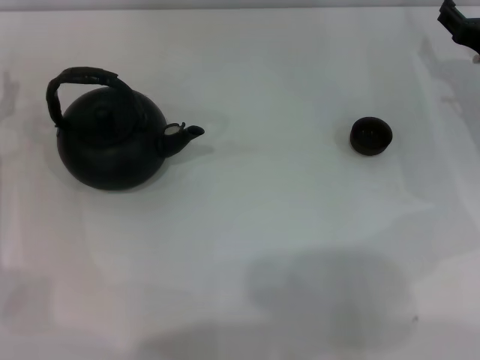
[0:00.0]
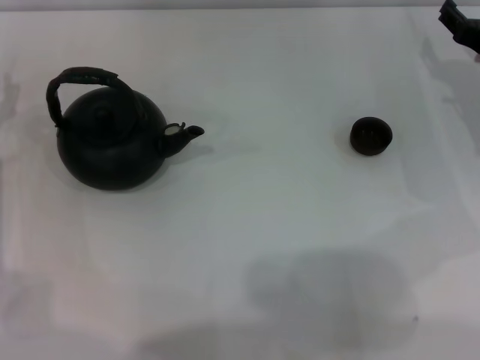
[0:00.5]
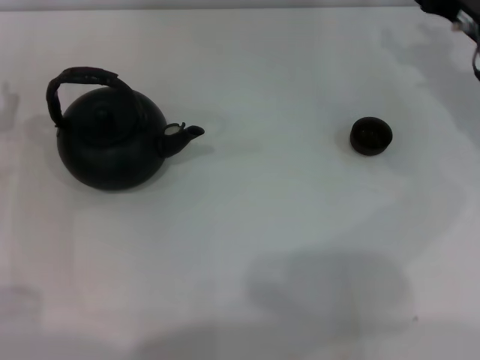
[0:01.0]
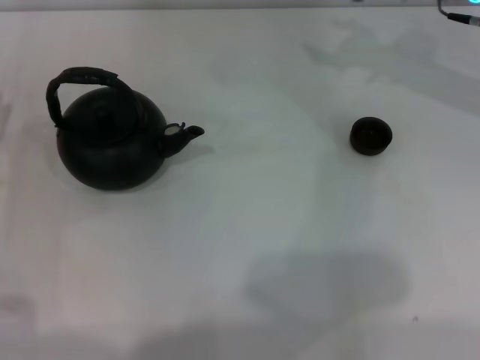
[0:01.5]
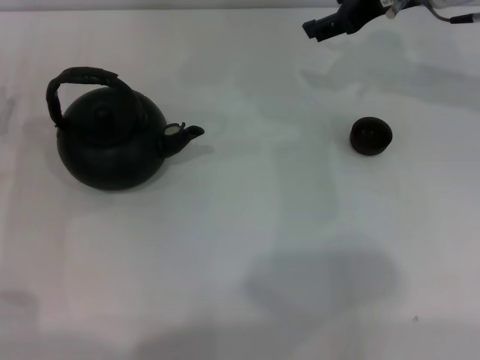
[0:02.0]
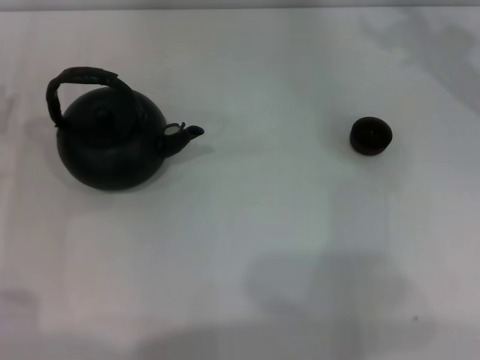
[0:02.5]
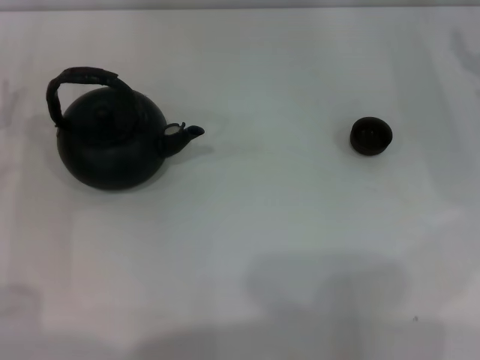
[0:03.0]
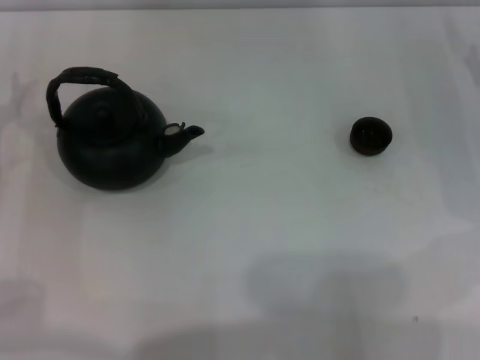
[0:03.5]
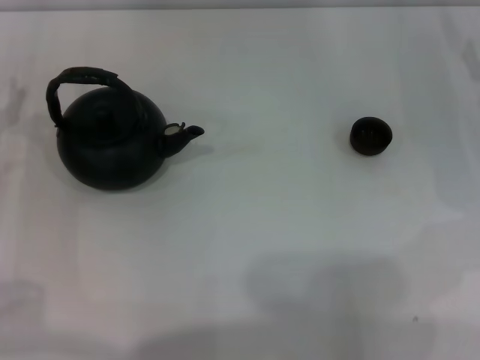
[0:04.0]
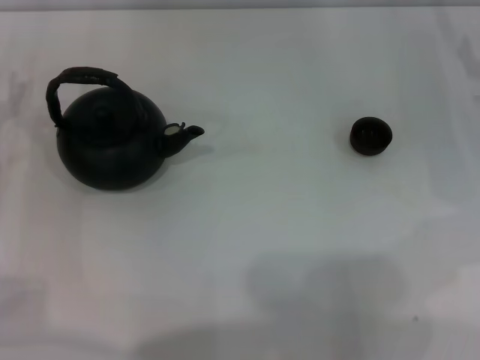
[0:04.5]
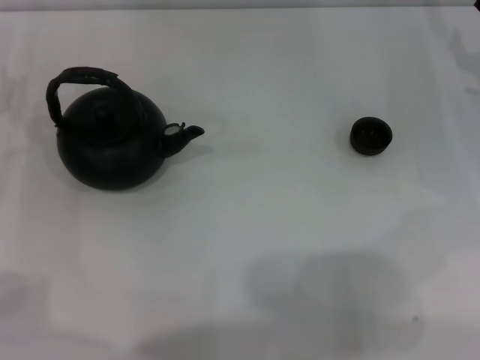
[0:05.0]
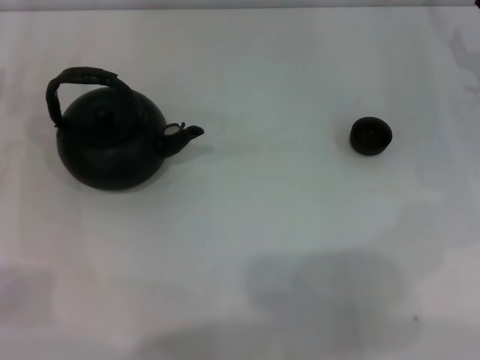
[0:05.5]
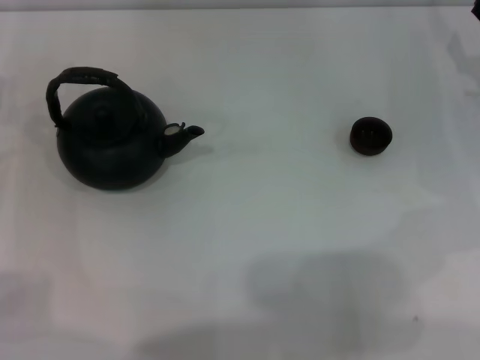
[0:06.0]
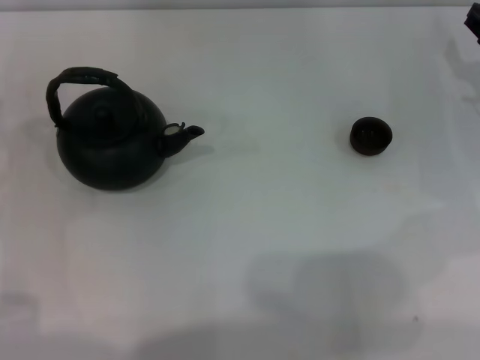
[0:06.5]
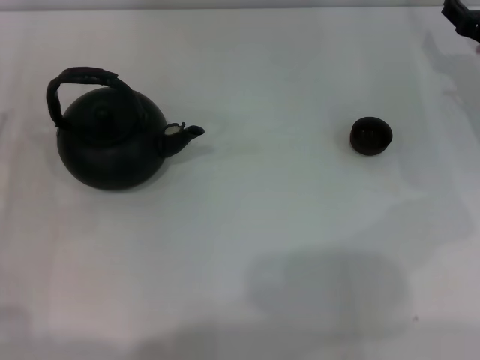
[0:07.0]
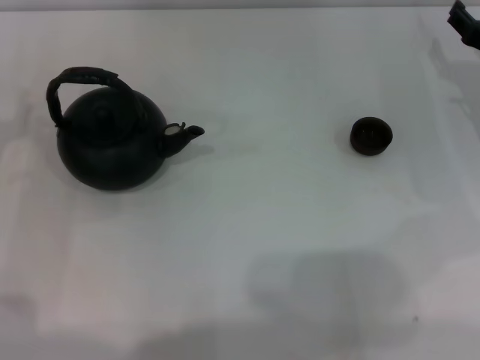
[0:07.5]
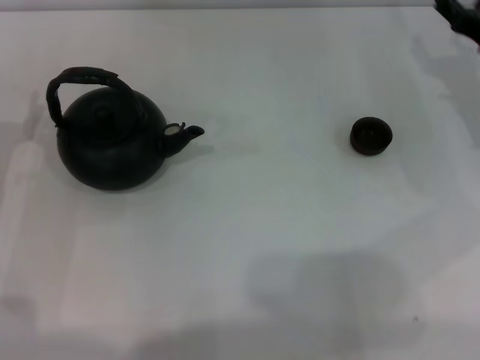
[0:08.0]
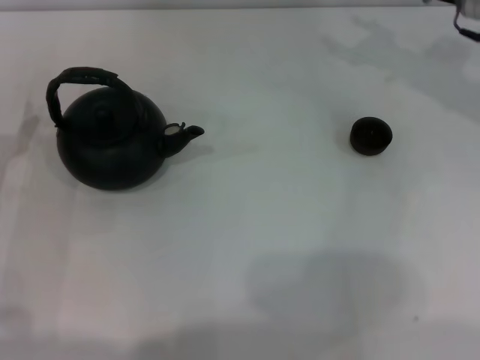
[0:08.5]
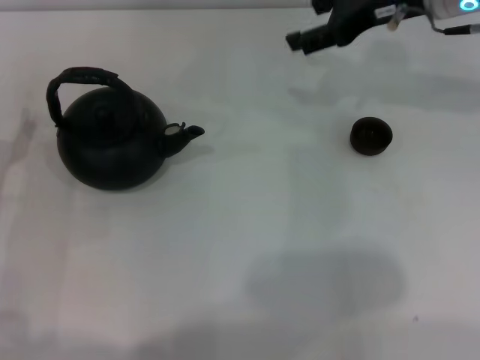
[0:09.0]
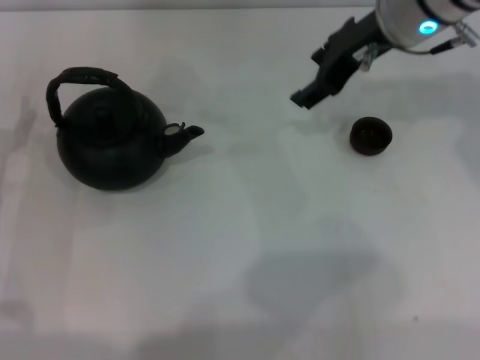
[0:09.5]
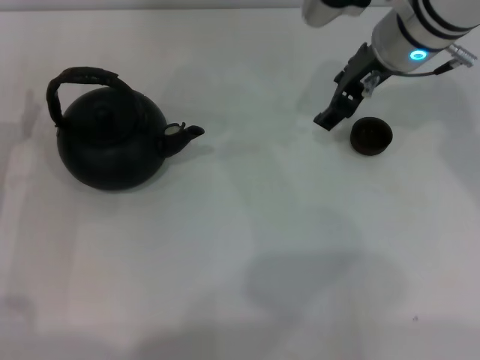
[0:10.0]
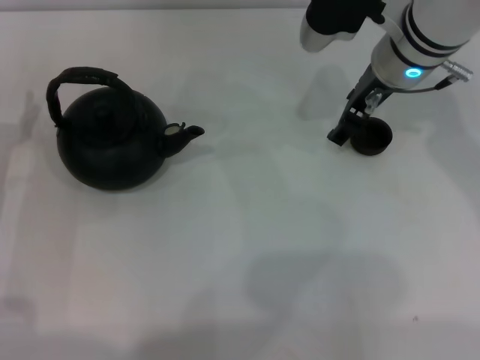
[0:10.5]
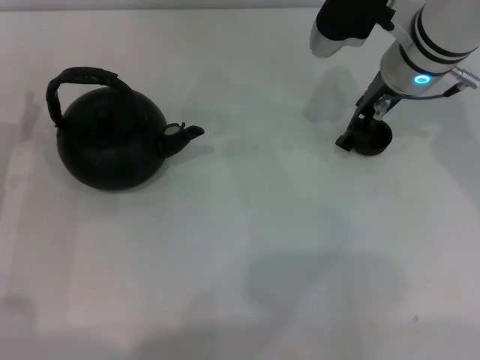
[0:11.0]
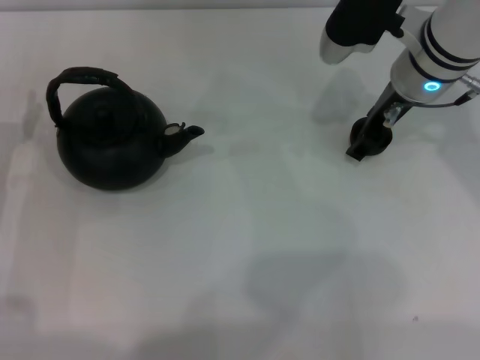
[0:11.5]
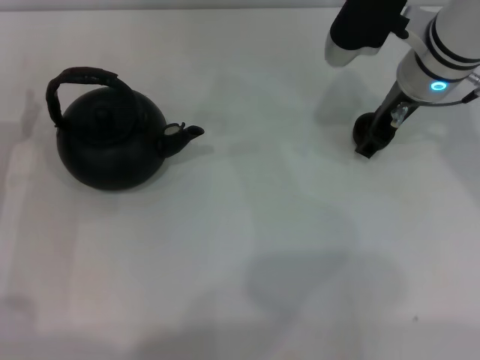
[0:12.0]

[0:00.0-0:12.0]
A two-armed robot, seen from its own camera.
Task of the whole recording: Grasp the handle of the teapot with one hand and pour tea into the teacup.
0:00.0 to 0:02.0: The right gripper goes some 20 cm upward, to the left and forward.
0:02.0 to 0:04.0: The right gripper goes roughly 20 cm to the right, downward and backward.
0:08.0 to 0:10.0: The right gripper goes approximately 20 cm to the left and upward.
0:10.0 to 0:12.0: The grippers move only a little.

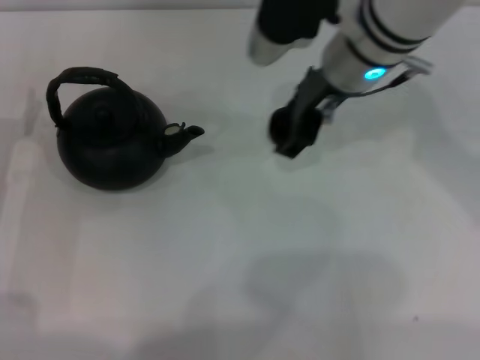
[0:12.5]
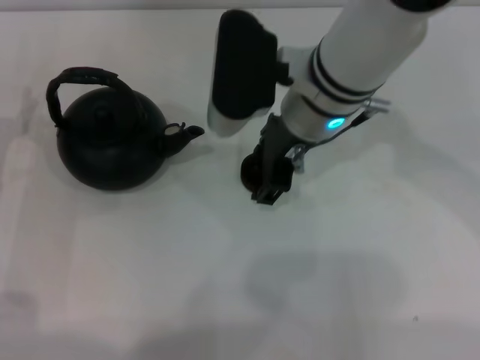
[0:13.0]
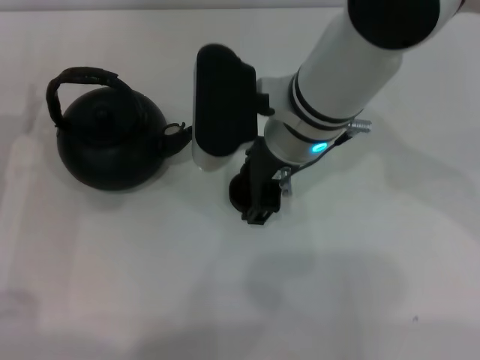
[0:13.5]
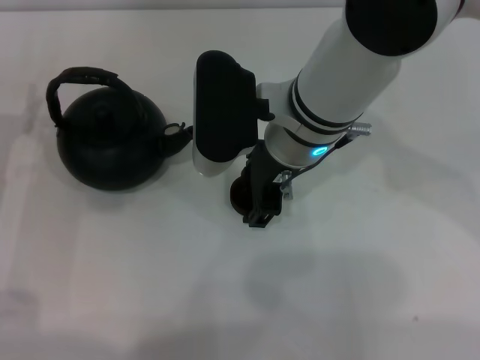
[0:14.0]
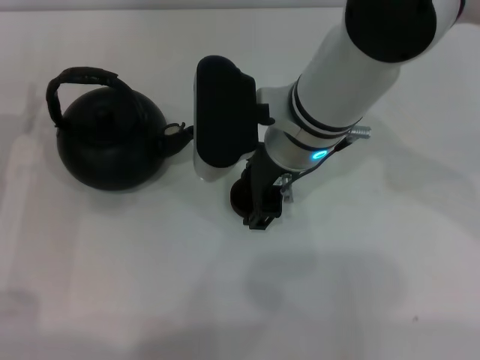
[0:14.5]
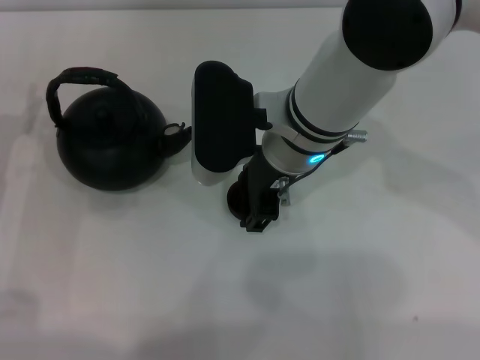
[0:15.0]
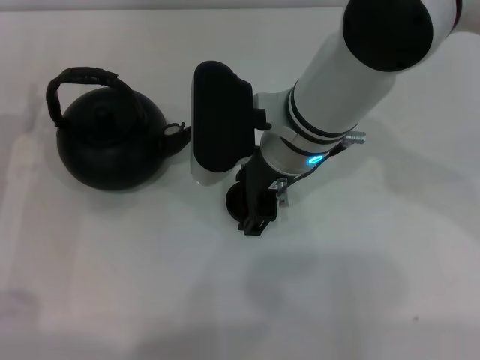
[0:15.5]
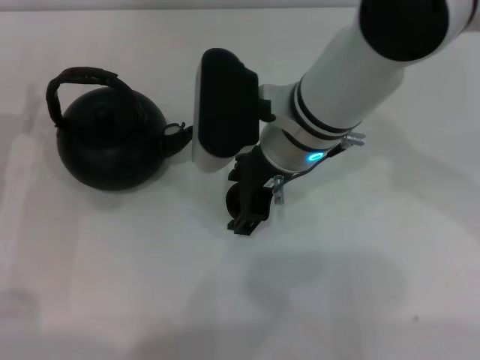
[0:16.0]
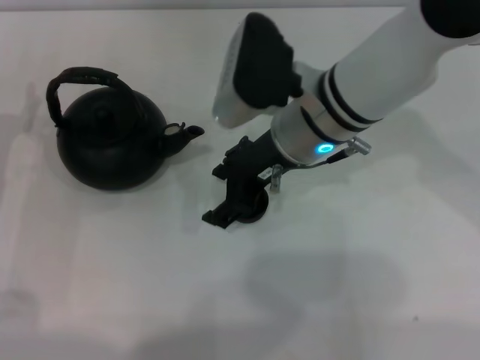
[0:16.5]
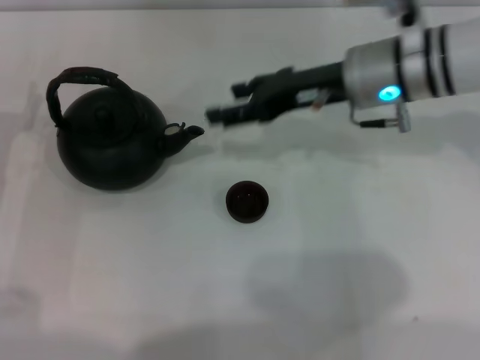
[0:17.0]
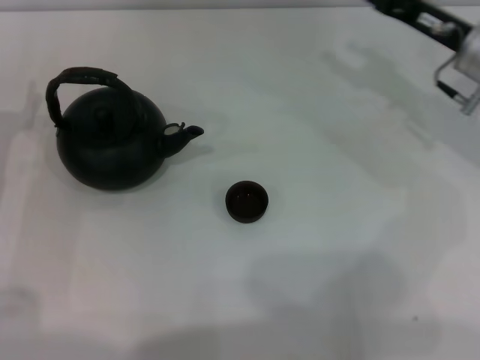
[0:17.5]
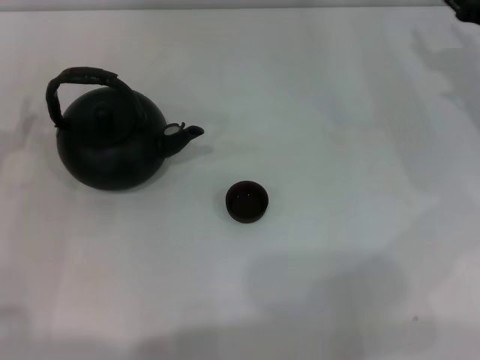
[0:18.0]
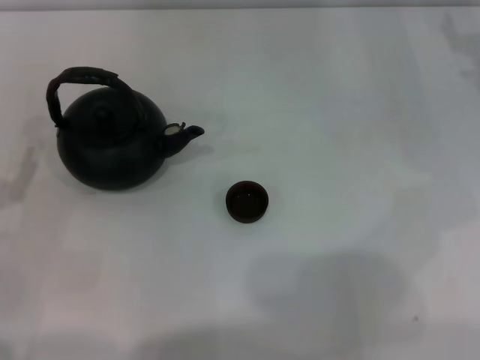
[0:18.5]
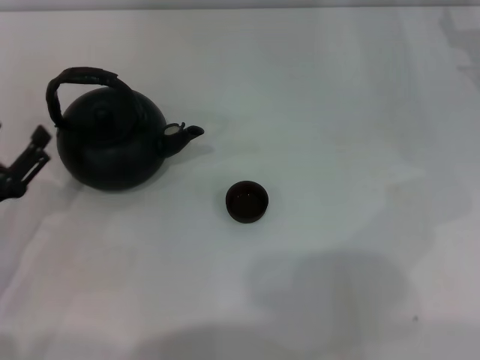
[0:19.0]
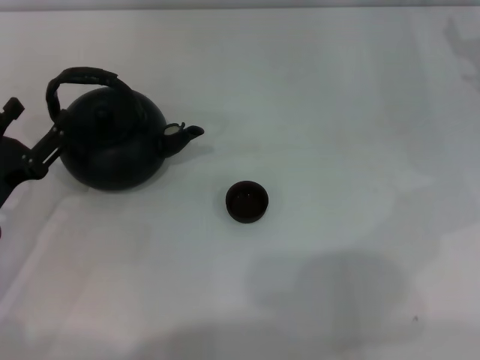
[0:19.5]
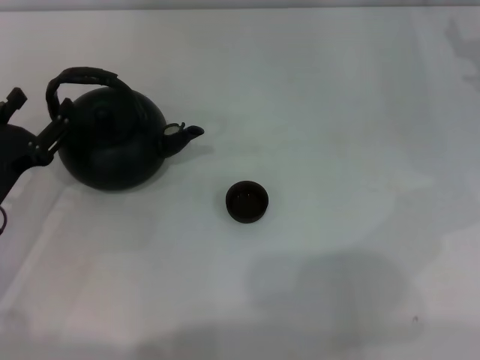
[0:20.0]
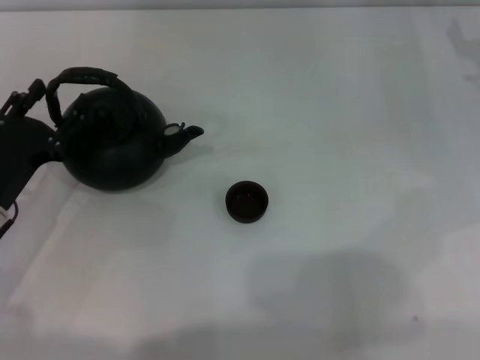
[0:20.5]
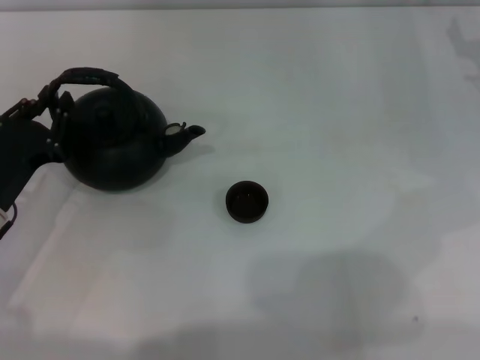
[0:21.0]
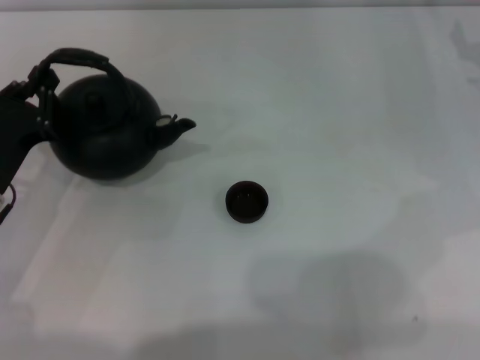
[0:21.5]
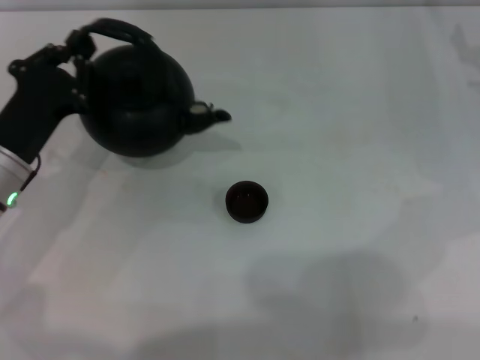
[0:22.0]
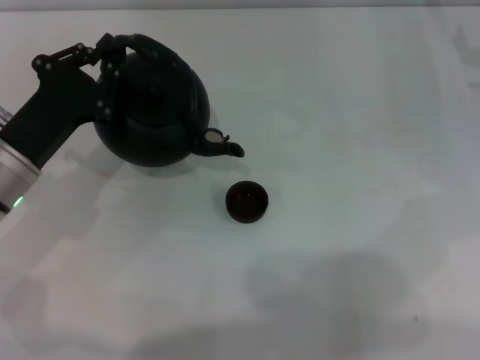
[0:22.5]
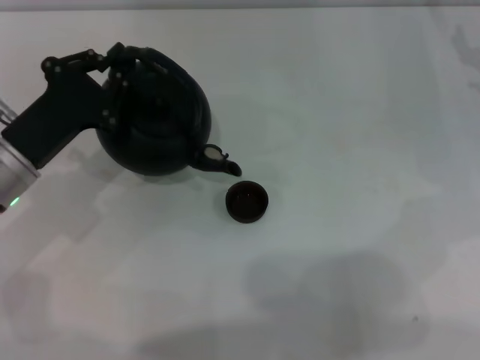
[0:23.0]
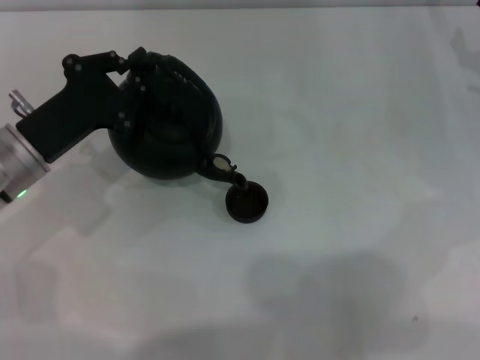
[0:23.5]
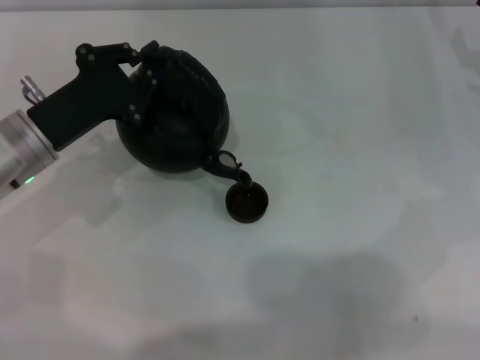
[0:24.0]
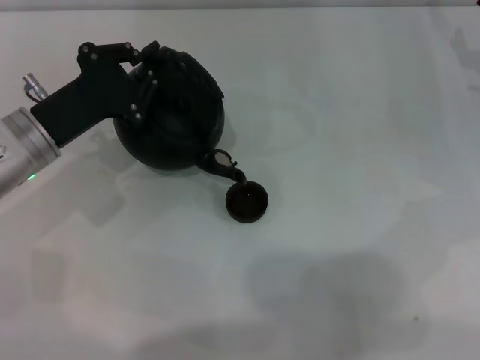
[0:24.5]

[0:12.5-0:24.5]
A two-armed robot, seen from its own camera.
Task of the whole recording: Grasp the handle of the teapot with one hand and pour tea into the teacup.
Step, 0:12.5 to 0:15.5: Place the teacup in the center of view with the right gripper.
Step, 0:16.0 to 0:22.0: Pick up the teapot with the left gripper.
0:12.5 to 0:14.5: The right gripper heads to the left and backward, covering roughly 5 cm.
0:16.5 to 0:18.5: The left gripper goes some 10 cm backward. Meanwhile the right gripper travels to the right by about 25 cm.
0:18.5 to 0:20.5: The left gripper moves to the right and forward, some 10 cm.
0:20.5 to 0:22.5: The left gripper shifts by roughly 5 cm, and closes.
0:22.5 to 0:24.5: The grippers move only a little.

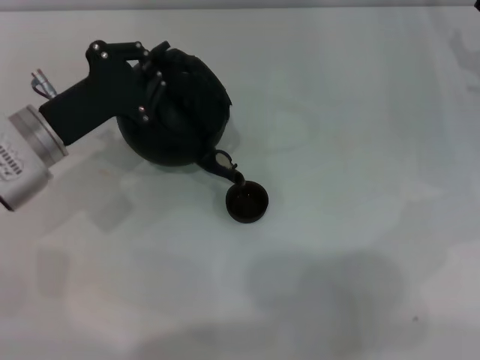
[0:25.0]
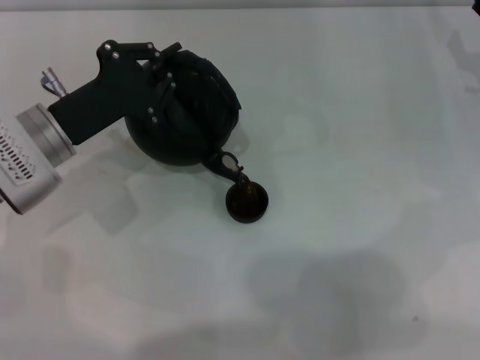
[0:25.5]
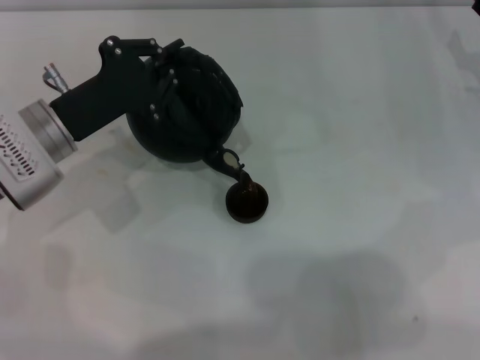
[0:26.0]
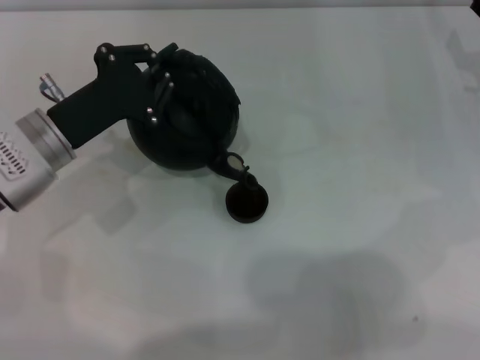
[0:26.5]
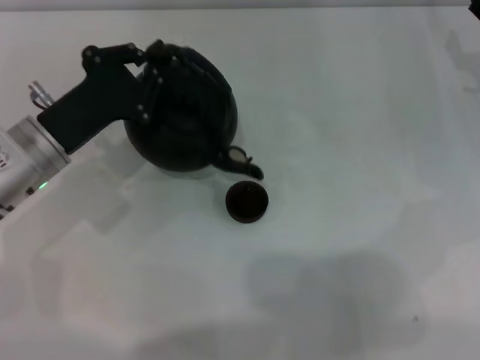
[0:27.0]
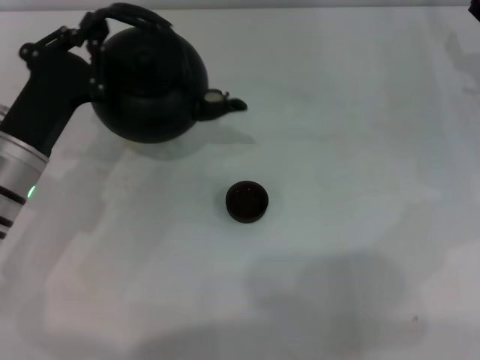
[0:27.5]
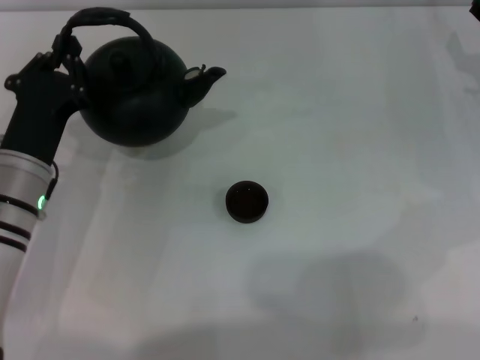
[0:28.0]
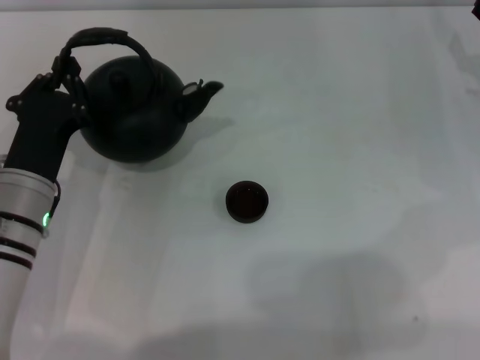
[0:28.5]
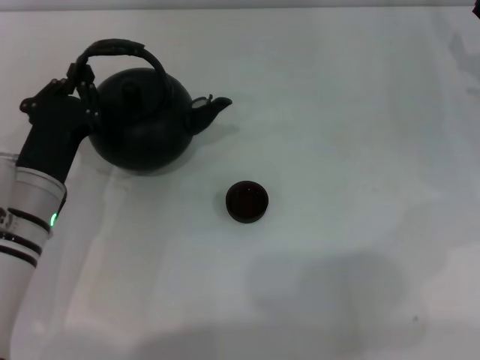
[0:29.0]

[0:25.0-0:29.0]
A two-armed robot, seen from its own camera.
Task of the whole recording: Grasp the handle of the teapot with one hand and pour tea into the teacup.
Step, 0:25.0 to 0:27.0: Pour tea into the teacup with the left gripper.
0:25.0 to 0:27.0: The grippers make only small movements.
0:27.0 to 0:29.0: The left gripper shifts by approximately 5 cm.
